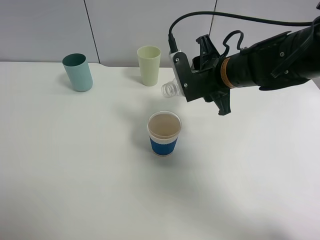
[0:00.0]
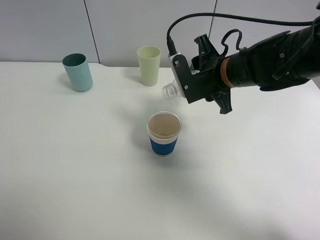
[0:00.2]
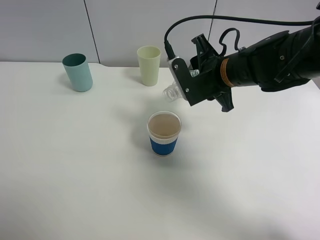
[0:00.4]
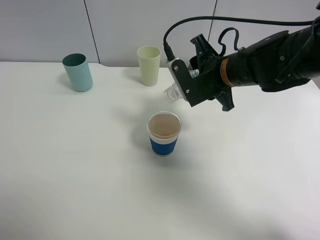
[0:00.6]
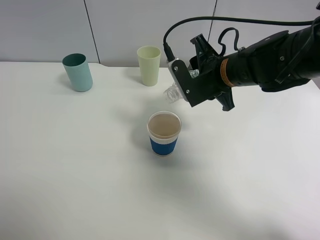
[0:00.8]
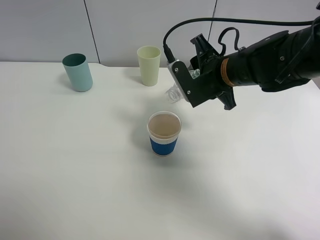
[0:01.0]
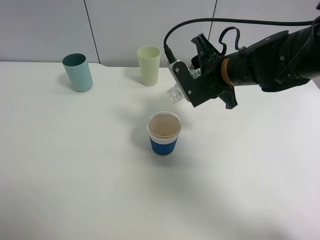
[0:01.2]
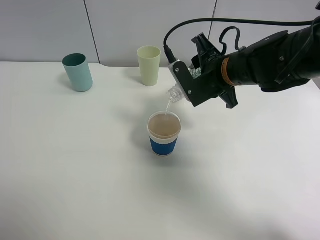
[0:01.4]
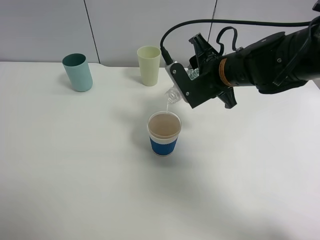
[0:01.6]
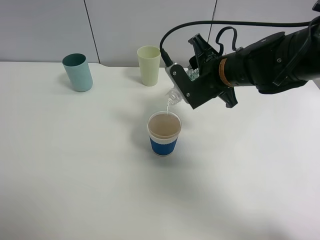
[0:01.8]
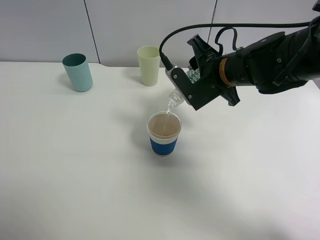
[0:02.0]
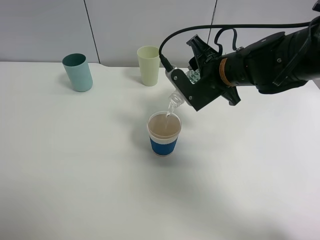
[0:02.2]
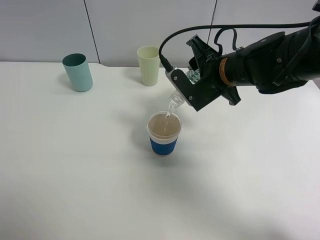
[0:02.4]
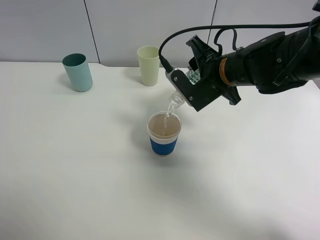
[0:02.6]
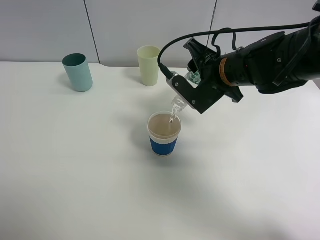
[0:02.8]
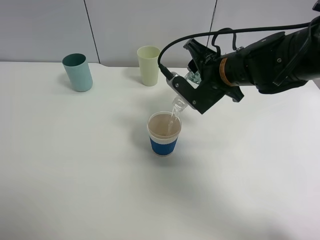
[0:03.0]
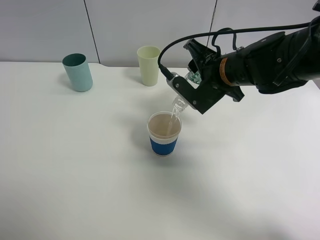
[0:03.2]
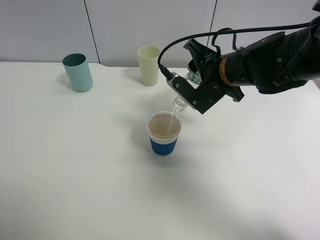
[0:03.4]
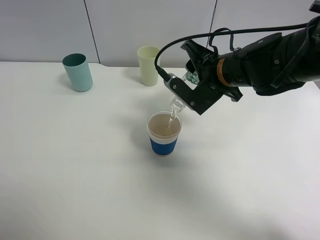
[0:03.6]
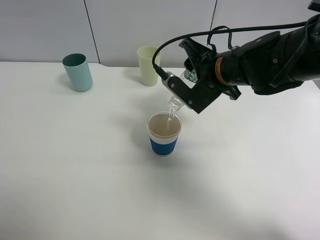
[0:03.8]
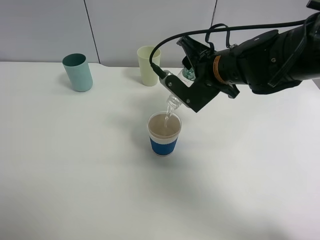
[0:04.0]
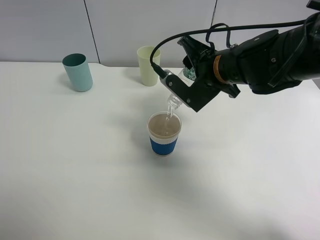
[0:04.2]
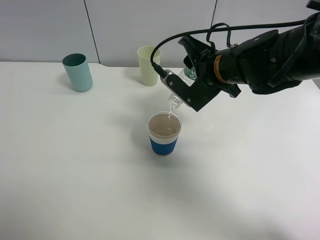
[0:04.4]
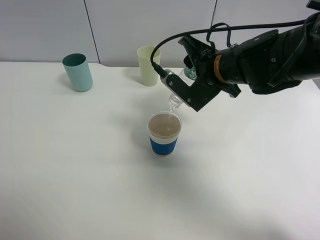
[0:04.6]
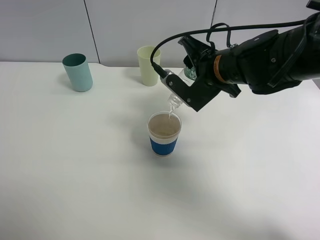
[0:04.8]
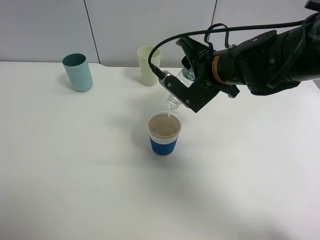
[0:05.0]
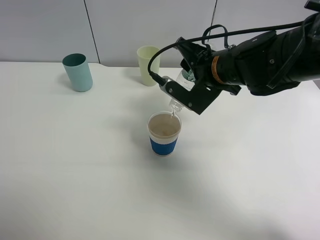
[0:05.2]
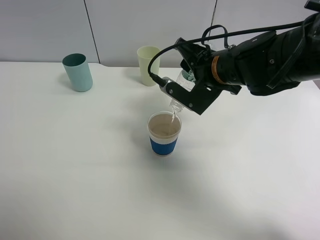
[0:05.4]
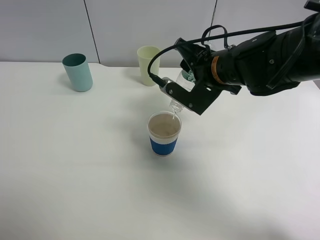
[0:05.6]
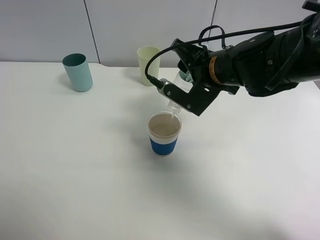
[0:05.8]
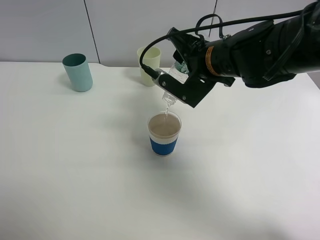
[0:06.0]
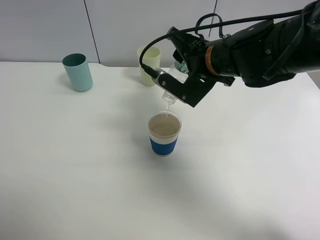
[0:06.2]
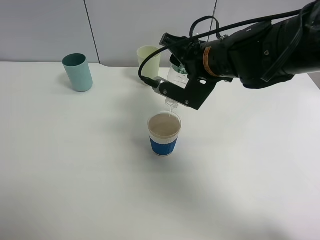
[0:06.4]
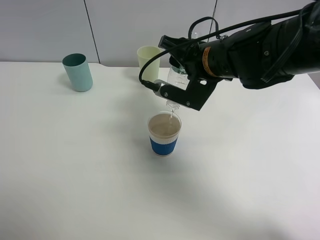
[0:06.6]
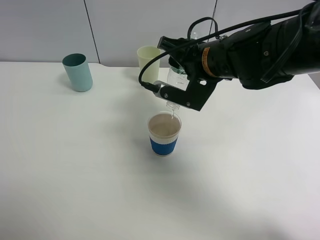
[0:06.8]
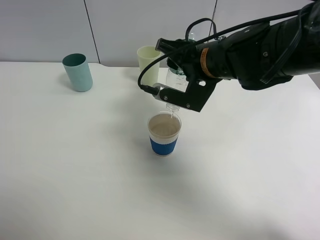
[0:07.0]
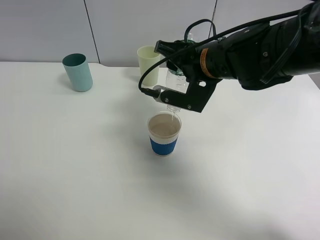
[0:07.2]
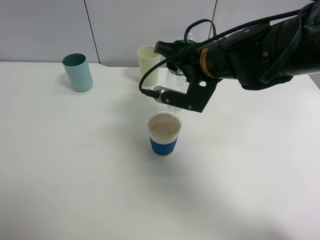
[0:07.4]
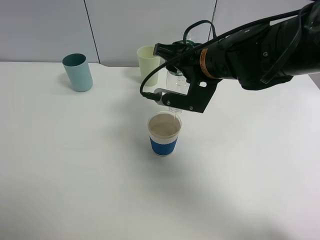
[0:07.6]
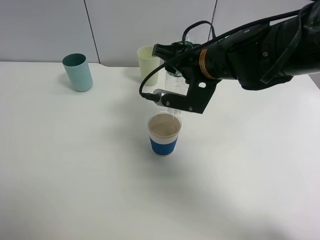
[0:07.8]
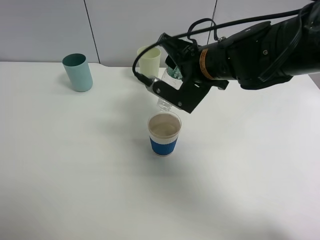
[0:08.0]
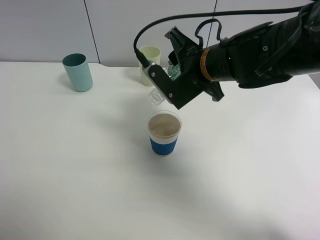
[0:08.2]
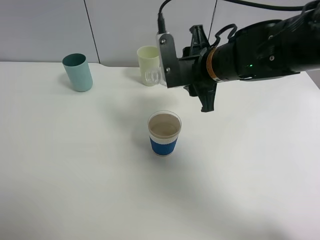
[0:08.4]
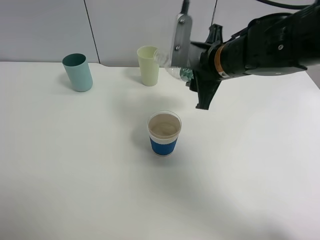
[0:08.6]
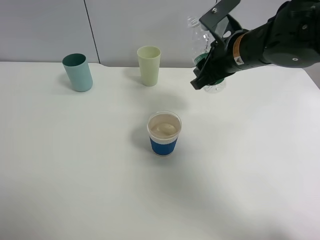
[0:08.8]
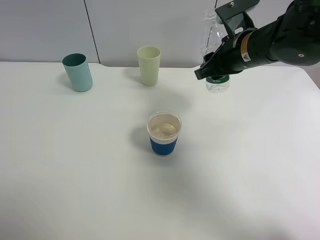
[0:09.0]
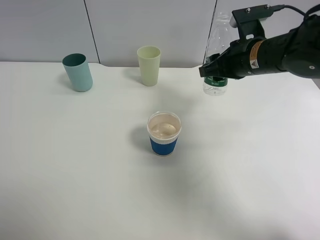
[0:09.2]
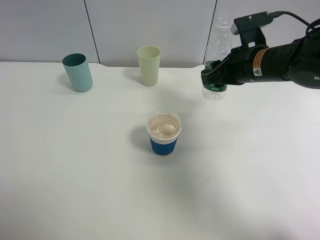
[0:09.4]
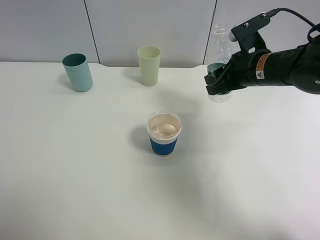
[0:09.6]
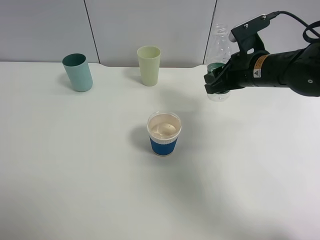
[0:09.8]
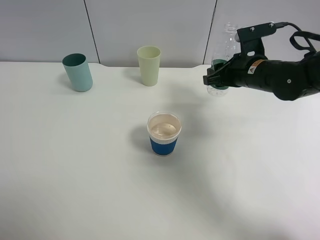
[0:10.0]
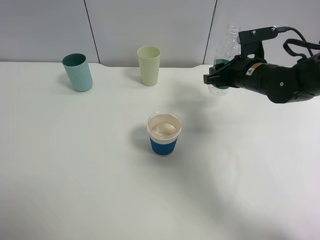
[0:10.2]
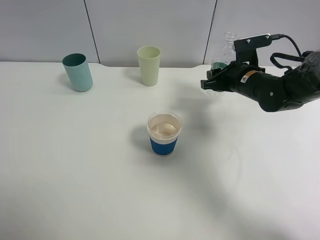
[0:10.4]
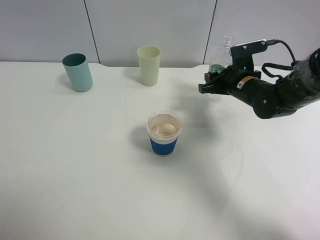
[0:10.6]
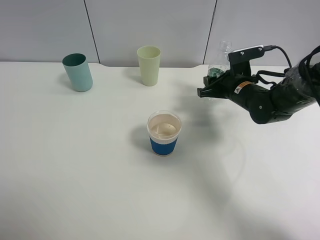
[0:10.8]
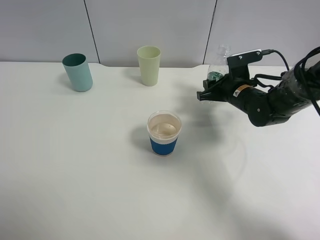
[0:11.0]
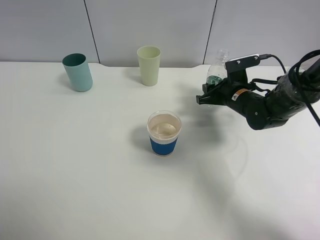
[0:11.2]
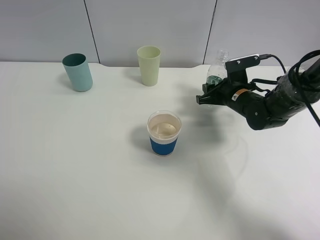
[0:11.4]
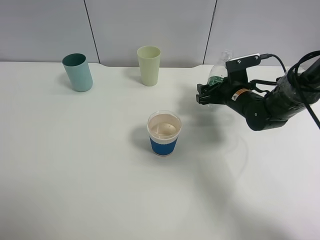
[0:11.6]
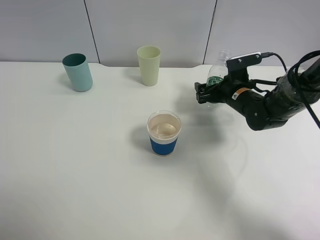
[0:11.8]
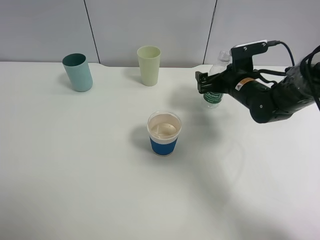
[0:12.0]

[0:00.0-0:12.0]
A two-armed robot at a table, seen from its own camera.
Task of the whole recording: use a clamp to hold the bottle of the drink, pour the beverage into a random cup, then clamp the cup containing the drink and pour the drink into another random cup.
Step, 0:00.0 to 0:08.2: Pour water into the paper cup with right gripper.
Step, 0:08.4 to 0:12.0: Place the water bottle on the table with right gripper.
0:00.0 to 0:01.6: There are only small adjustments of the grippers.
0:01.6 to 0:04.4: The grippers move only a little.
0:04.4 to 0:06.0: There are only small adjustments of the grippers.
0:06.0 to 0:07.6: The grippers stay close to where they were, moving slightly.
0:07.6 to 0:09.0: The right gripper heads to the right, covering about 5 cm.
0:09.0 to 0:10.4: The right gripper heads downward, covering some 10 cm.
0:10.4 to 0:12.0: The right gripper opens.

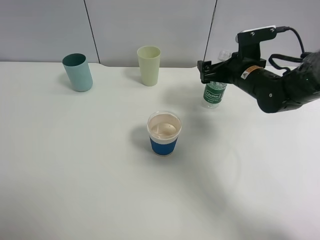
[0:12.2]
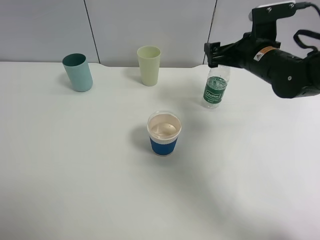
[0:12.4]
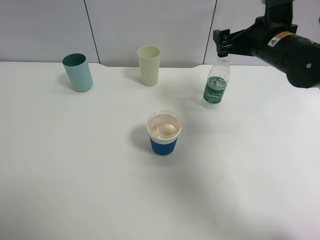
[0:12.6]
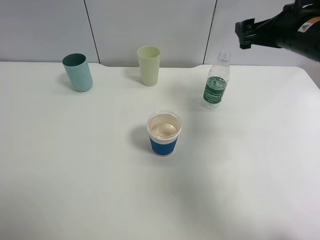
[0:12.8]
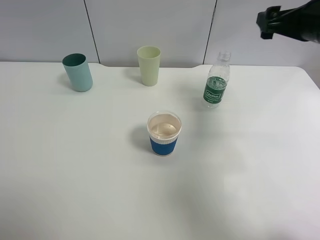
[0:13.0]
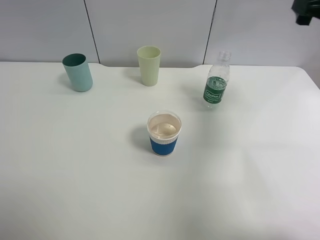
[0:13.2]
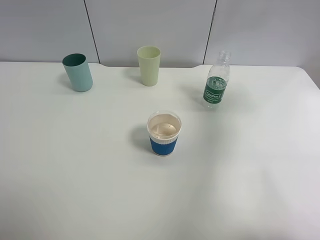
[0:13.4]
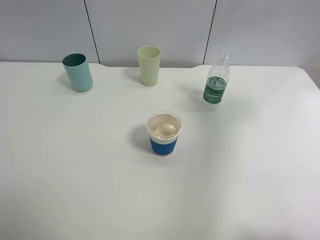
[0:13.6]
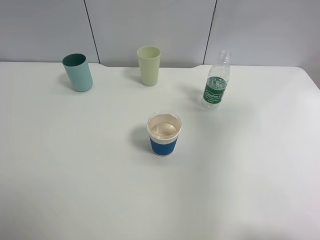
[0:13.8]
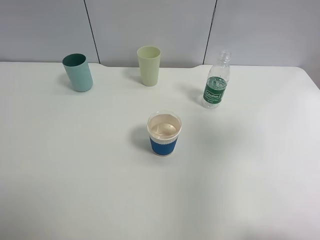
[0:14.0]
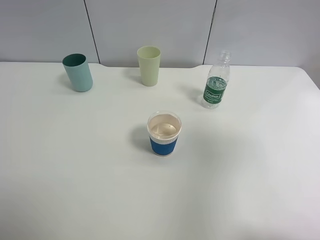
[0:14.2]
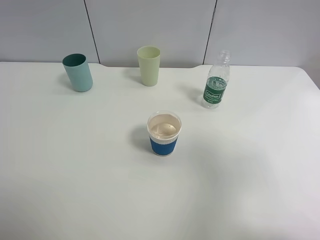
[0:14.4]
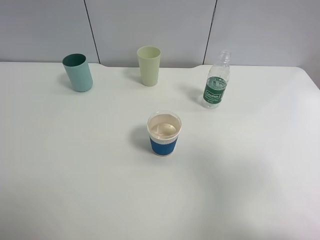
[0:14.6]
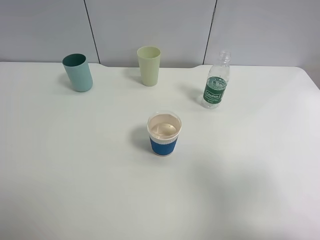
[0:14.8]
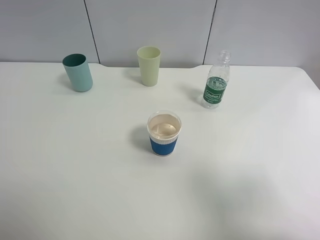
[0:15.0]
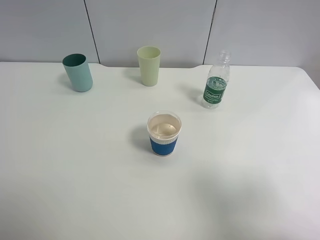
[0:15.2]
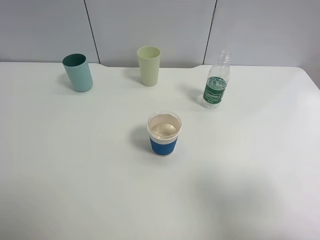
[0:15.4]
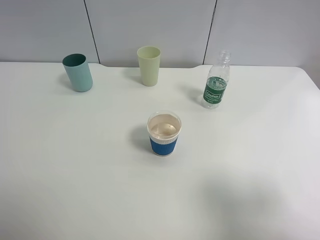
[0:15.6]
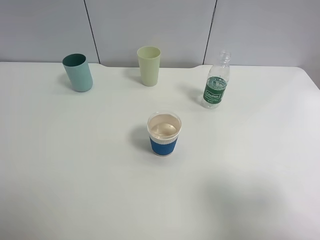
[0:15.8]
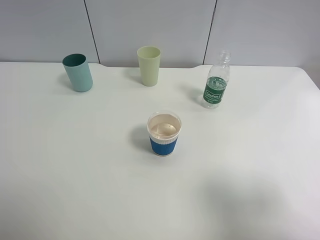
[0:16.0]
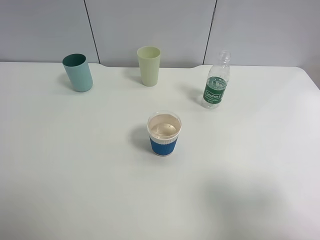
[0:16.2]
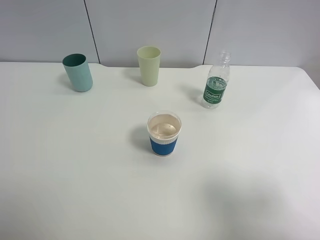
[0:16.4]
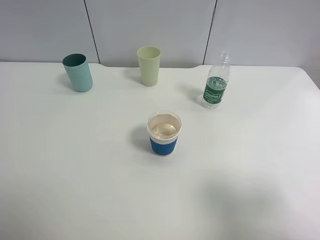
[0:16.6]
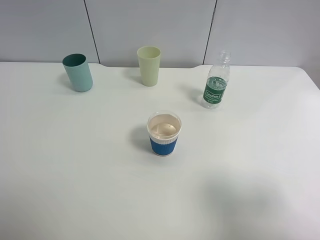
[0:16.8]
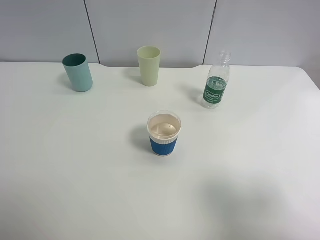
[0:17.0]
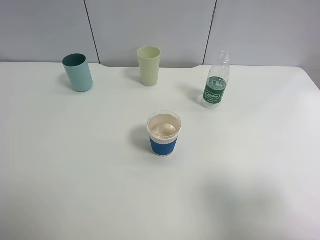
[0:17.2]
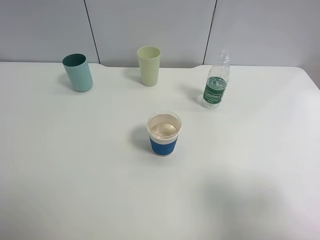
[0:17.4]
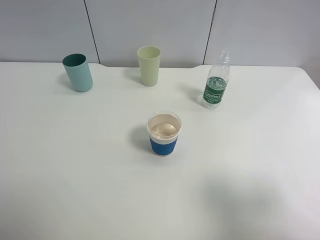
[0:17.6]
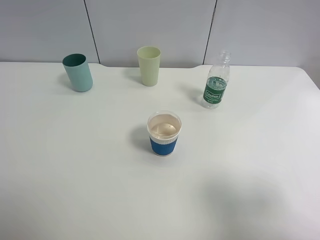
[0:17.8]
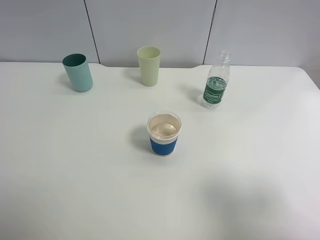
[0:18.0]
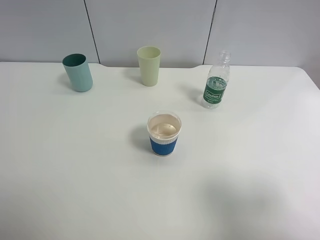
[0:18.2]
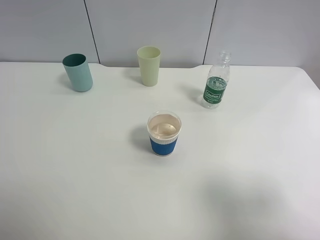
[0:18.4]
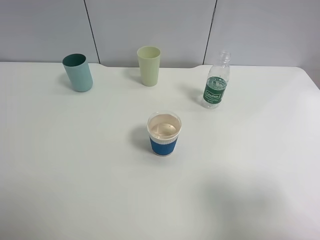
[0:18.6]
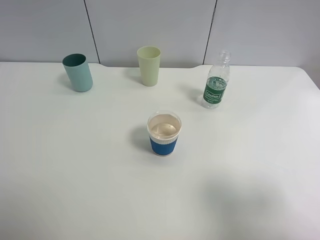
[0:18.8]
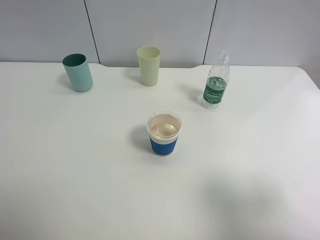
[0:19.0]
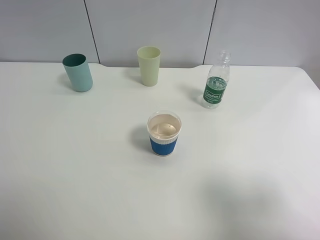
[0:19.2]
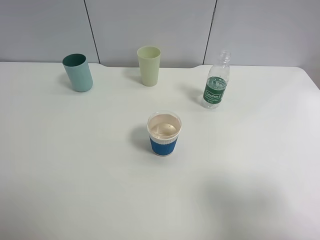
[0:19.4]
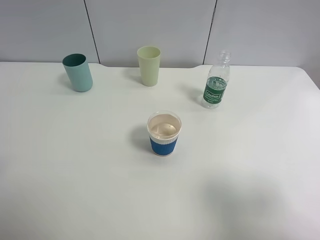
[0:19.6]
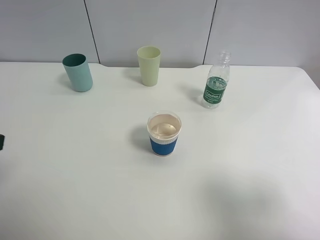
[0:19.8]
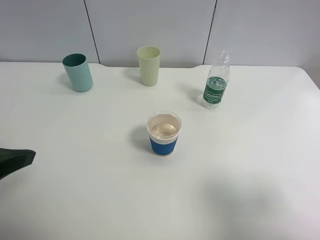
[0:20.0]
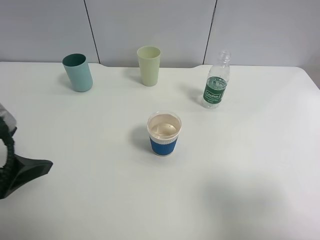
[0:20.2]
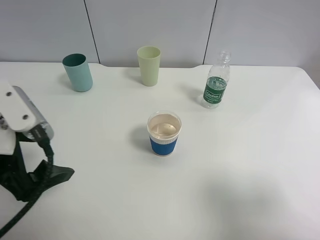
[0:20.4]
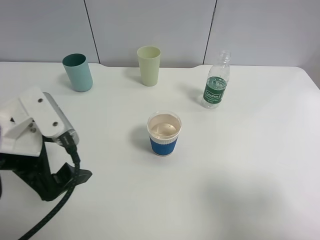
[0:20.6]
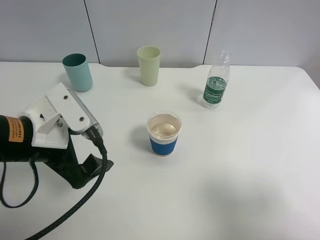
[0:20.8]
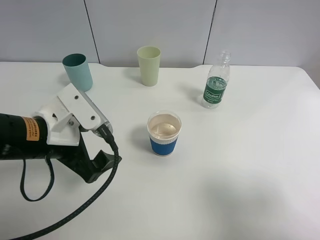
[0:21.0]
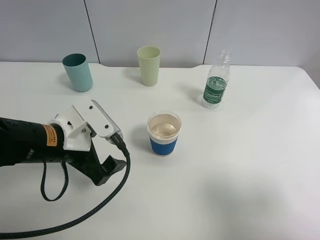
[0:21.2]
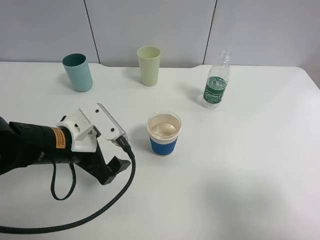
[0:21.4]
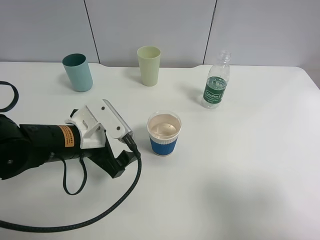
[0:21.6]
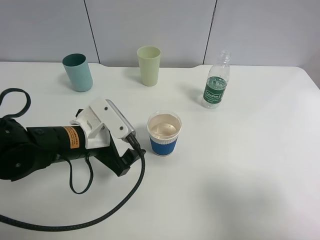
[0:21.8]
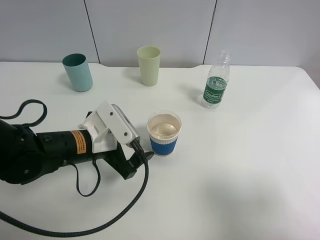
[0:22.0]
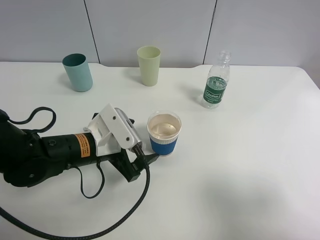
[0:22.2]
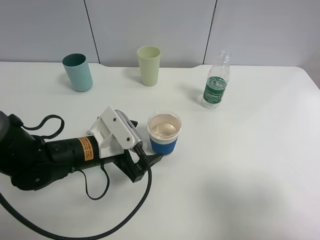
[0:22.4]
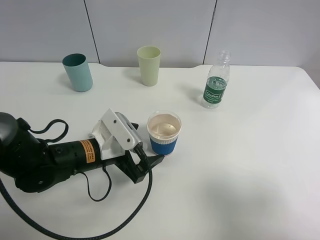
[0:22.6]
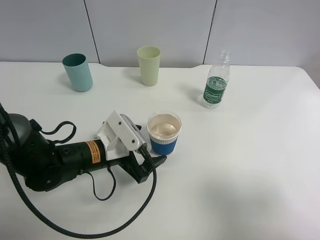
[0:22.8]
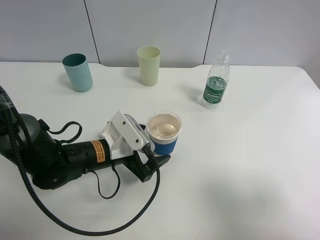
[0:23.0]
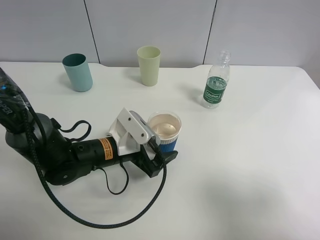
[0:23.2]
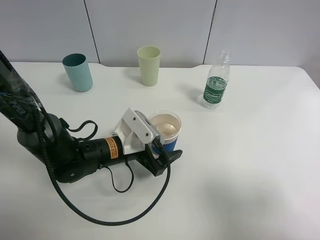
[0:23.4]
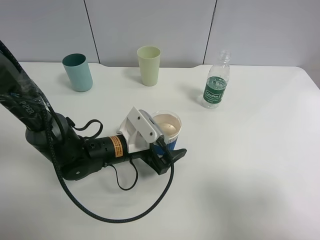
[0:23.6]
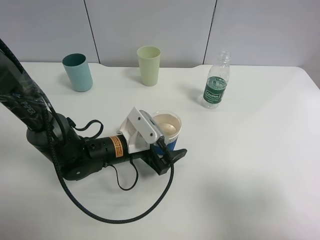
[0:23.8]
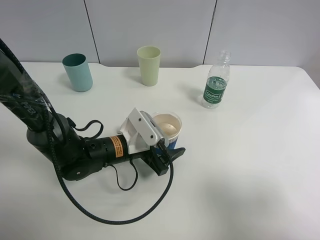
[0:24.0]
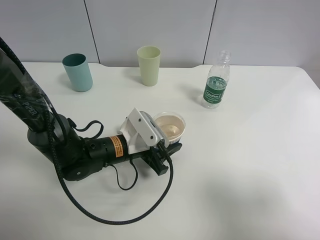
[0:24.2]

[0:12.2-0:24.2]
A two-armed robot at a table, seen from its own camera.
Task of the whole recording: use a clamp to hold the bottle of the drink, pour the beverage into a random cup, then clamp the cup containing the drink and pour the drink into another random cup.
0:12.2 to 0:13.8: The right gripper heads upward, backward and to the right, covering some 30 cm.
0:13.8 to 0:15.2: The right gripper goes about 20 cm backward and downward.
0:16.6 to 0:18.2: The two grippers keep their place.
0:19.8 to 0:21.2: The left gripper shifts approximately 20 cm downward, to the right and forward.
0:21.2 to 0:22.6: The left gripper shifts some 5 cm downward.
0:22.6 to 0:24.2: The left gripper ends up about 5 cm from where it was, and closes up.
